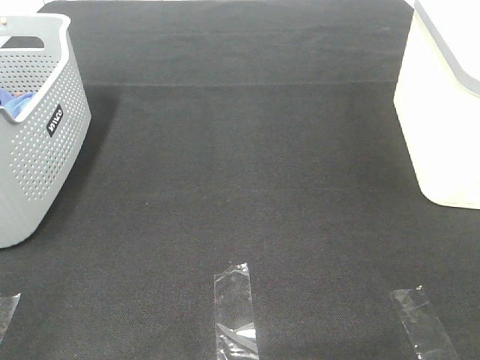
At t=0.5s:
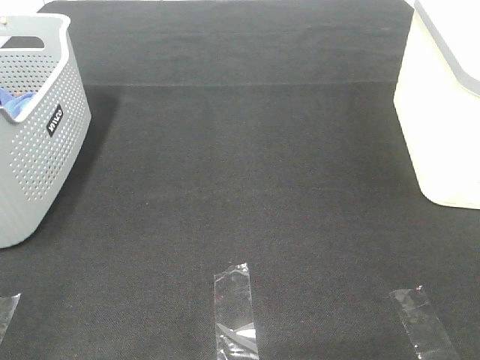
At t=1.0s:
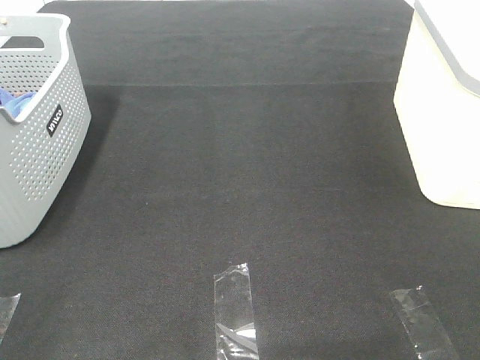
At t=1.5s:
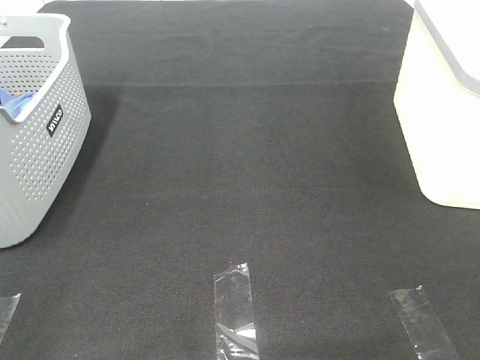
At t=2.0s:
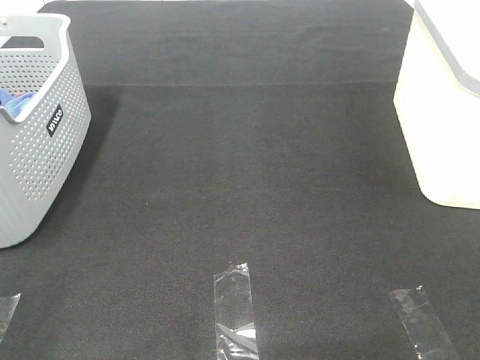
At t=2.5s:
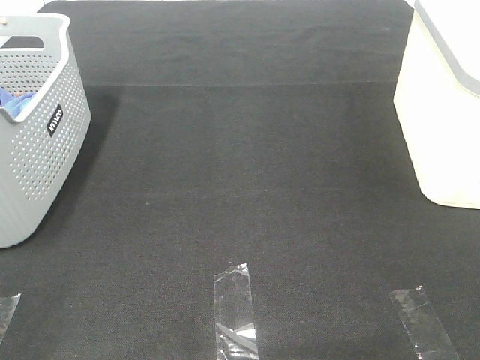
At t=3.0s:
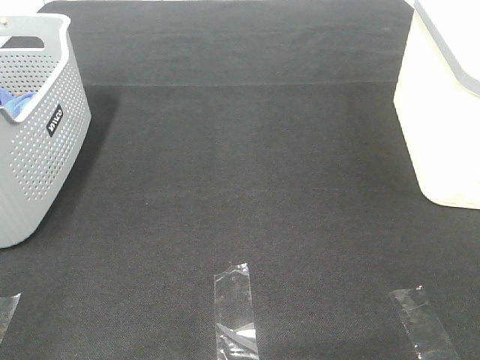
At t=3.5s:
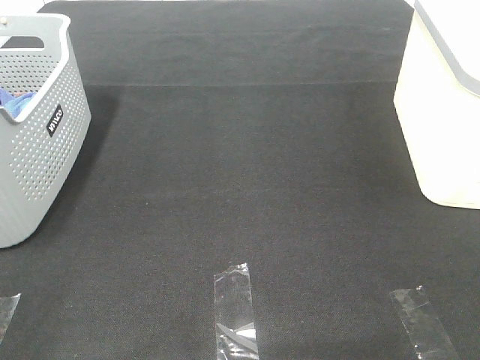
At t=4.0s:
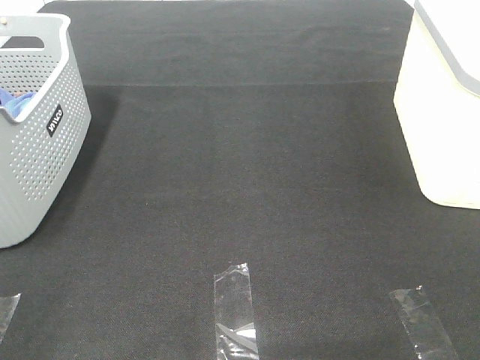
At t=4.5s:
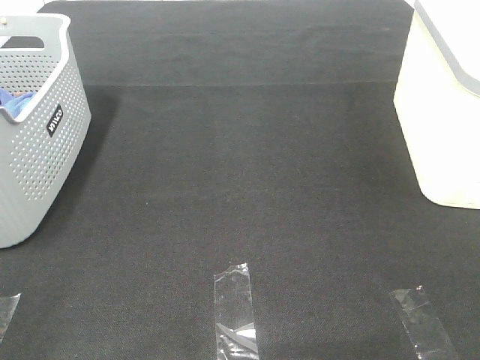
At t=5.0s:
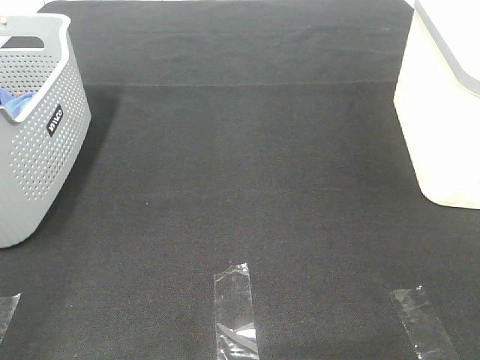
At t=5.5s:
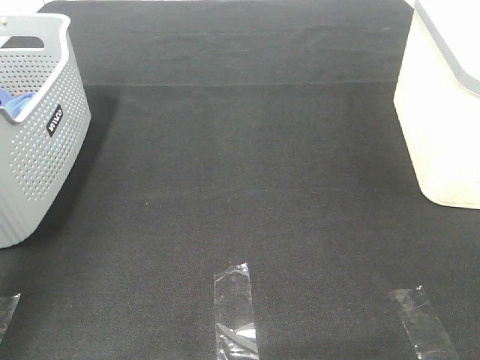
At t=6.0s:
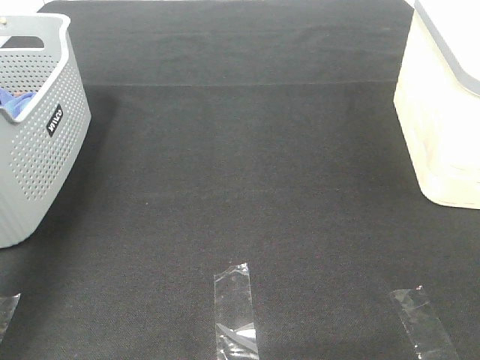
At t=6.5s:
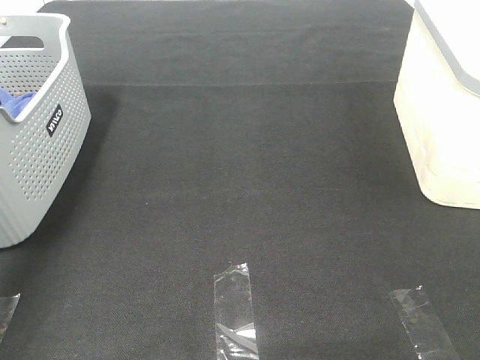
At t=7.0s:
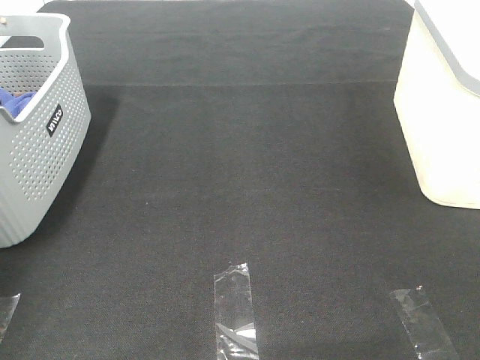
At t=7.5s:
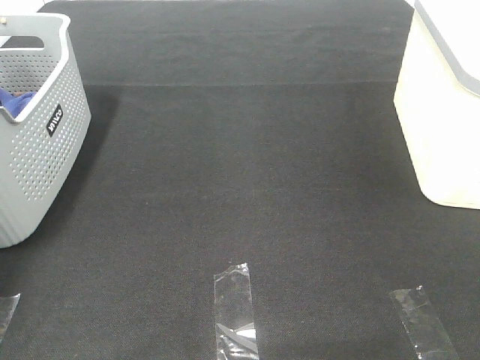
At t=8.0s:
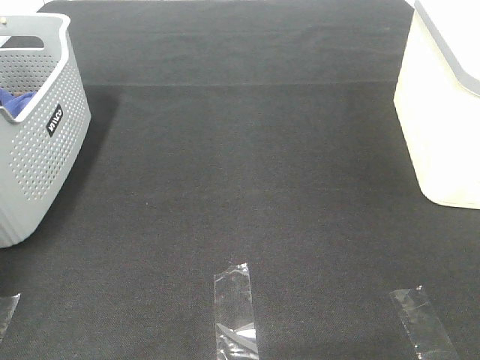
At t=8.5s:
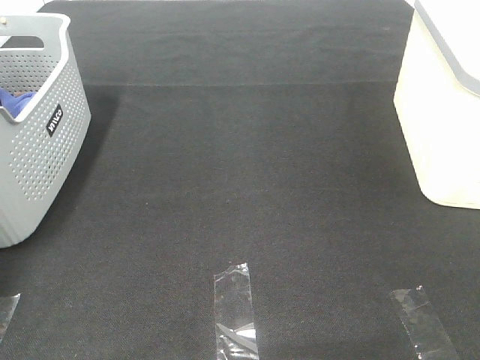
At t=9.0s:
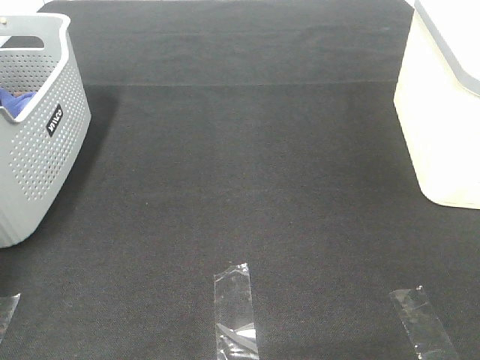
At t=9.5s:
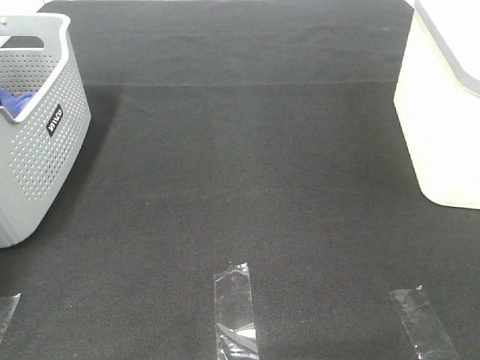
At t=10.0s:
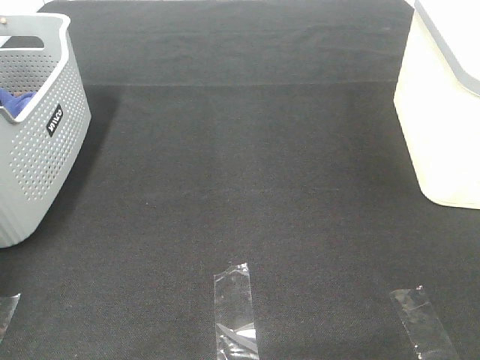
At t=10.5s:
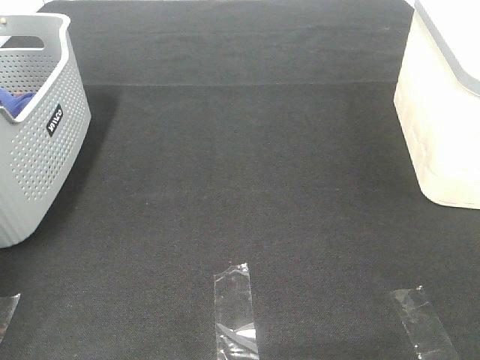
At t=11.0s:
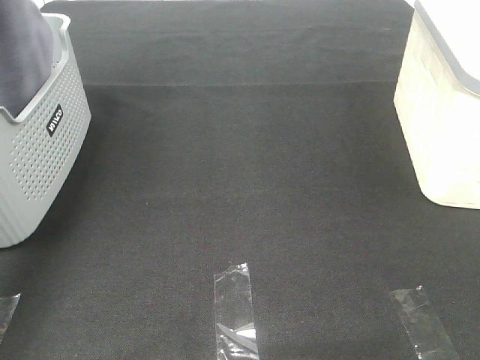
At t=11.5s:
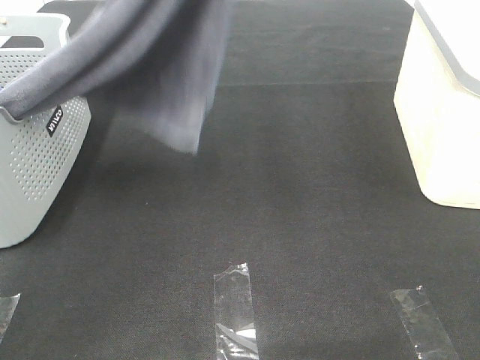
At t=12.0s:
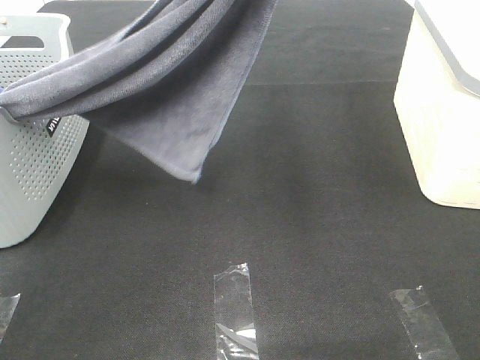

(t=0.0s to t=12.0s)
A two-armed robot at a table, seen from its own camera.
Task of the whole recording: Remove the towel and place it.
t=0.0s - t=4.0s: Neither gripper changes place.
t=4.0s - t=6.0s: The left gripper heads forward, covering roughly 30 cm.
t=6.0s - t=8.0s: The left gripper heads forward, downward and to the left, covering roughly 25 cm.
t=10.0s - t=12.0s: The left gripper is displaced to the right and backward by approximately 40 cm. The right gripper goes approximately 10 cm forward.

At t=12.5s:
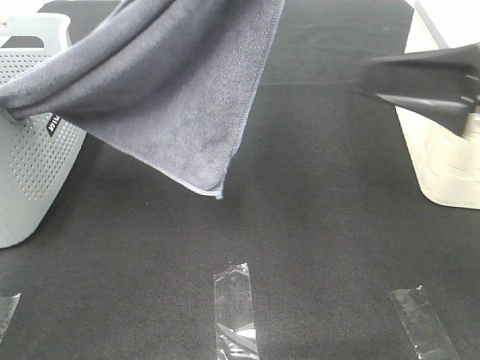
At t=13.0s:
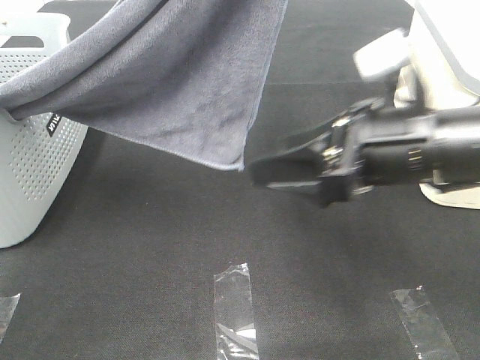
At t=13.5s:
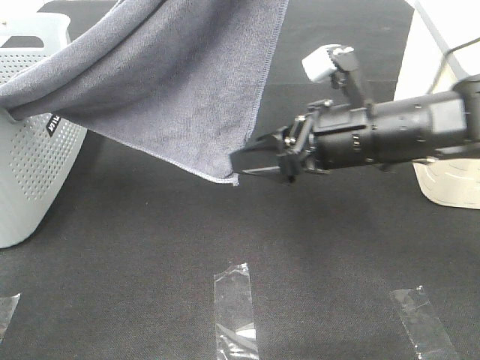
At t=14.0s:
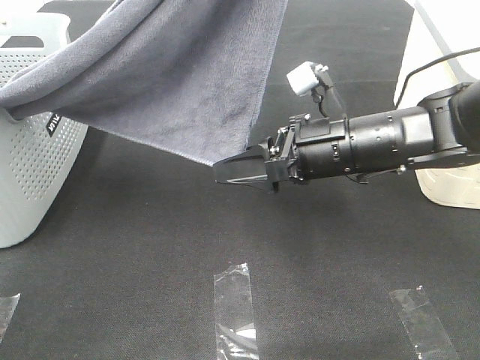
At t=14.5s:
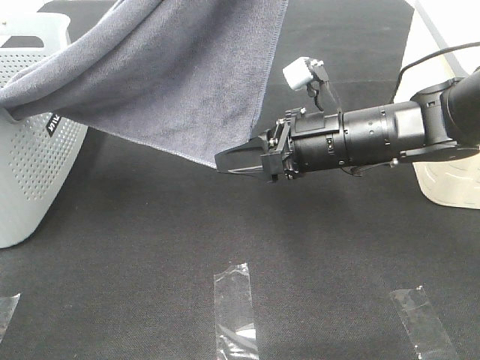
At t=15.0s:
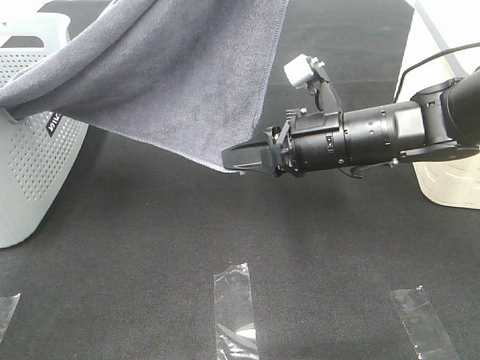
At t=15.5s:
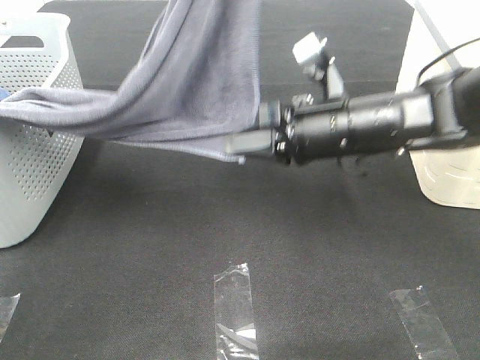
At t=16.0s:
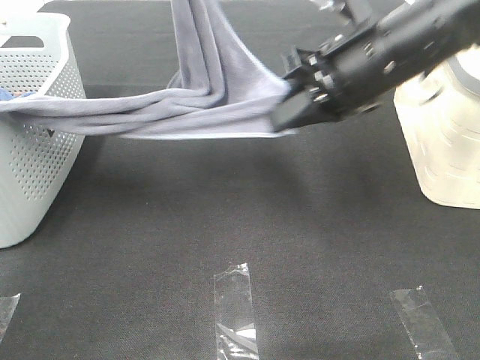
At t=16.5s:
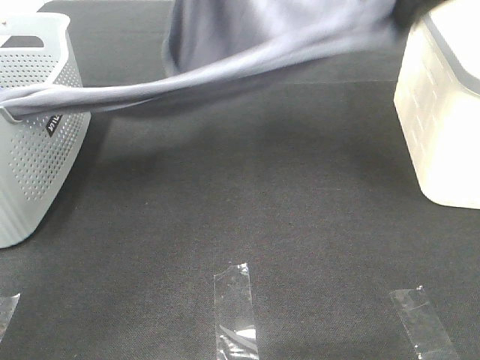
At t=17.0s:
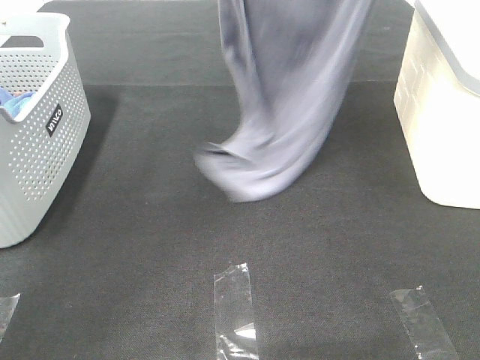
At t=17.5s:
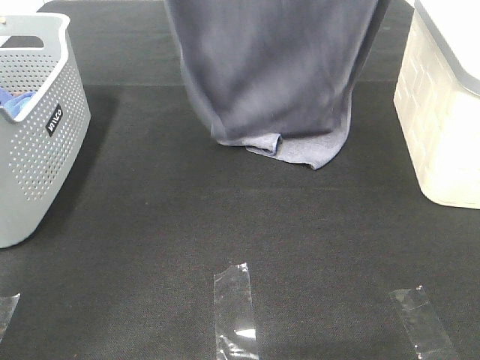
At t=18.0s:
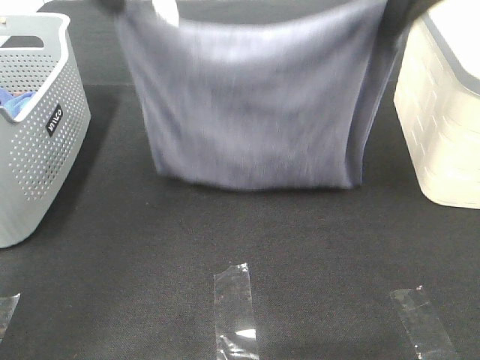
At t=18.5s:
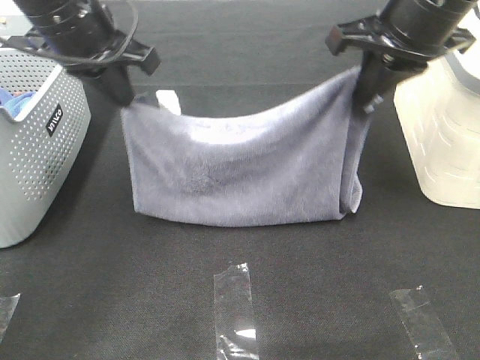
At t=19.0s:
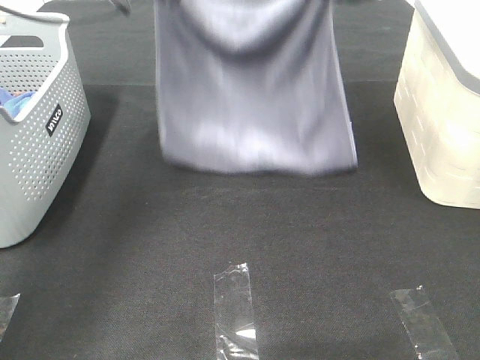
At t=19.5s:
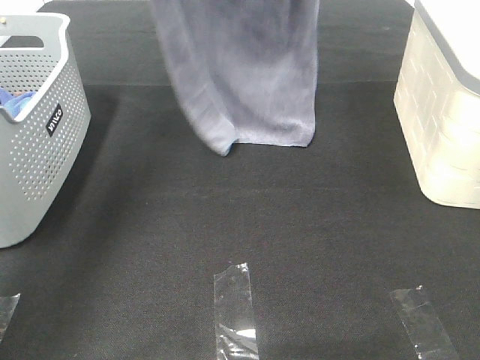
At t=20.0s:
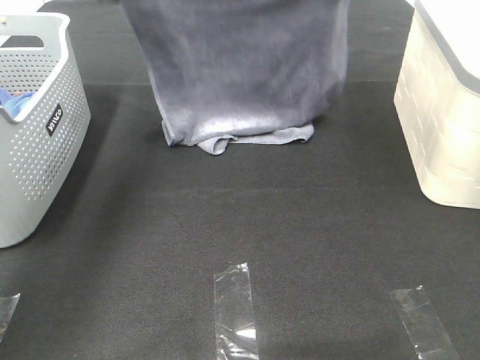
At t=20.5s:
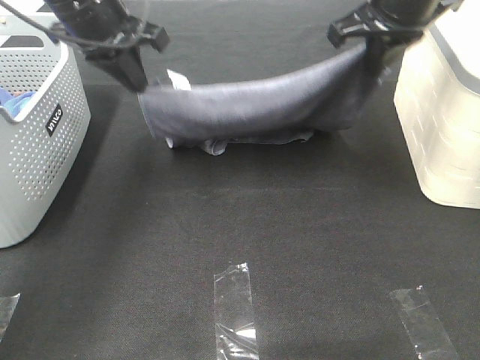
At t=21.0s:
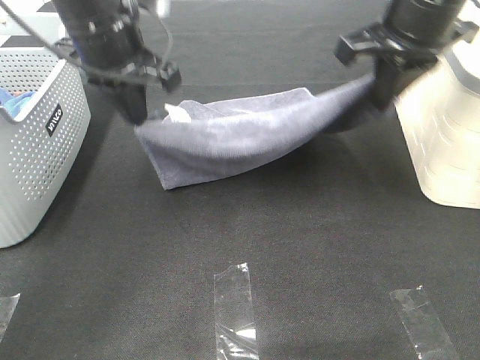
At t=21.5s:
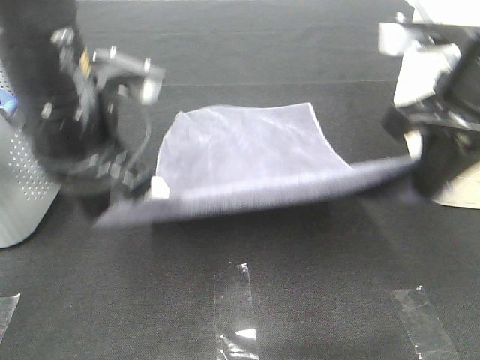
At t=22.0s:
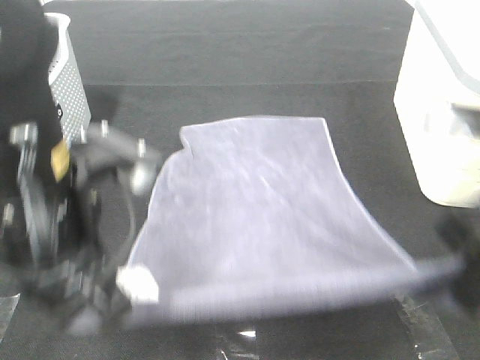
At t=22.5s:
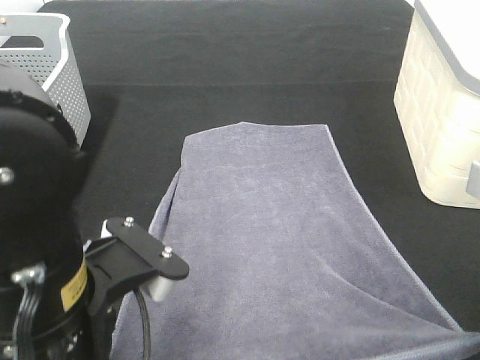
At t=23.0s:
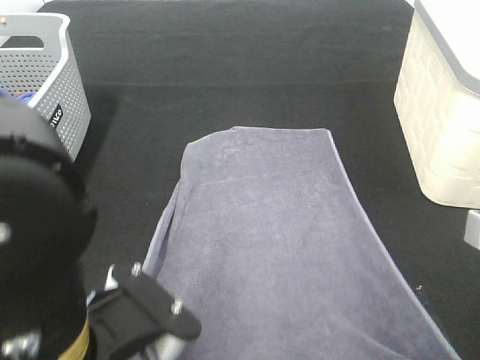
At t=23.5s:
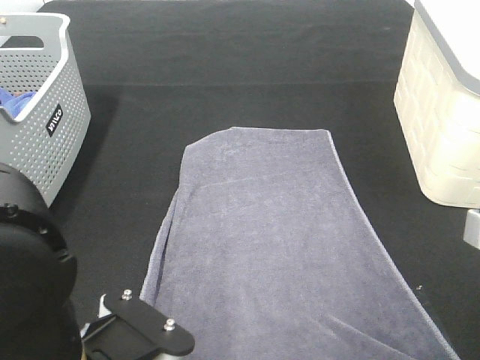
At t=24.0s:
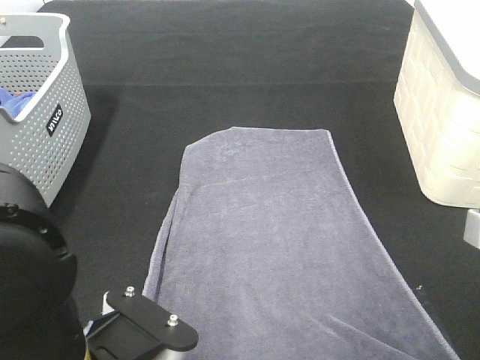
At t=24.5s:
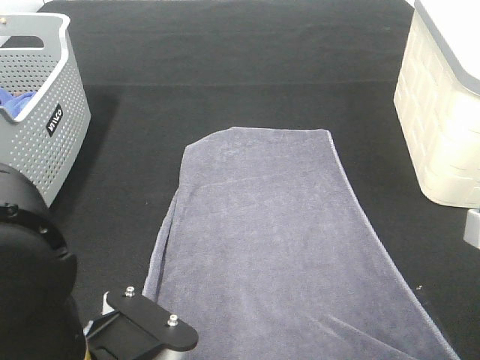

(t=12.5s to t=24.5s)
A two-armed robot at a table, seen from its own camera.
Task of the whole recording: Remove the towel and place it.
Step, t=14.5s - t=20.0s: Left hand: spread the grey towel flat on the table.
Step, t=14.5s - t=20.0s: Right hand: spread the grey towel flat on the table.
t=12.5s - t=14.5s: The right gripper travels downward, forward and to the left by about 20 cm, and closes its fingers.
t=14.5s - t=16.5s: The right gripper heads upward, covering some 25 cm, and closes, while the left gripper goes about 15 cm forward and downward.
t=16.5s - t=18.5s: The left gripper goes about 15 cm downward and to the left. Meanwhile the right gripper goes some 5 cm downward.
t=18.5s - t=20.5s: The left gripper moves about 15 cm upward and comes back; the right gripper reaches approximately 15 cm upward, then returns.
t=20.5s - t=22.5s: Both grippers move backward, about 30 cm.
t=22.5s - t=24.5s: The grippers stay close to where they were, moving slightly.

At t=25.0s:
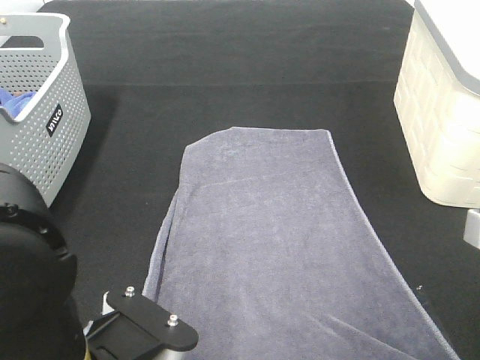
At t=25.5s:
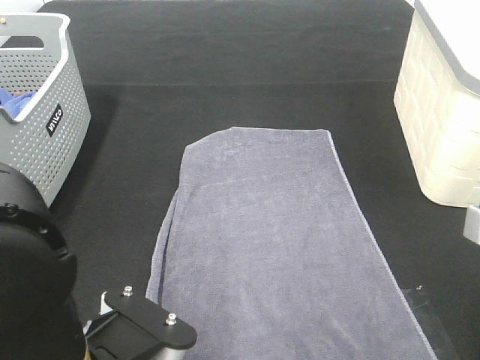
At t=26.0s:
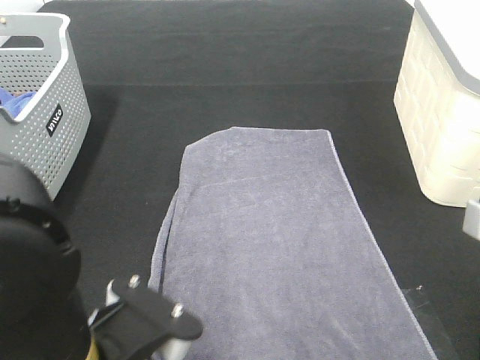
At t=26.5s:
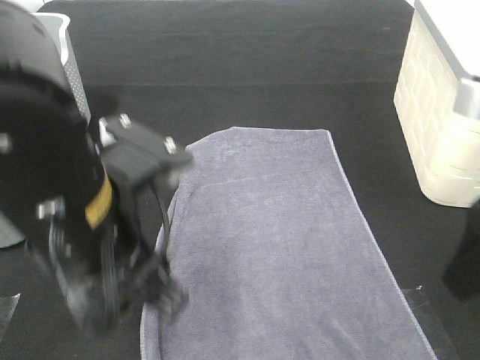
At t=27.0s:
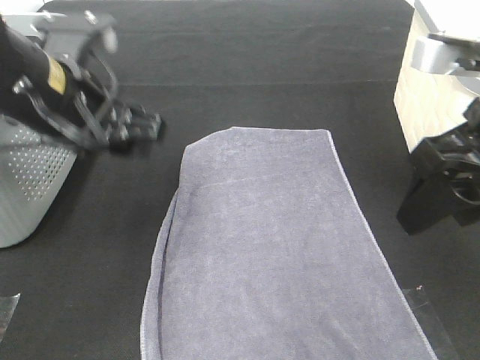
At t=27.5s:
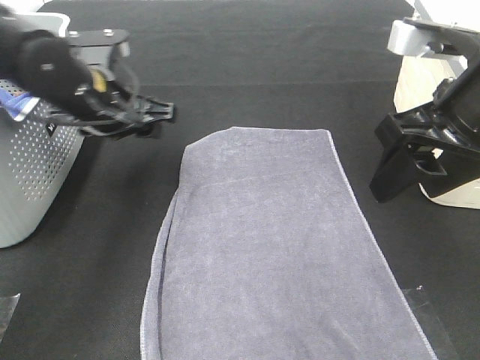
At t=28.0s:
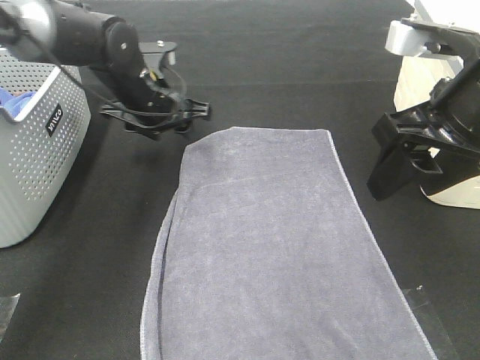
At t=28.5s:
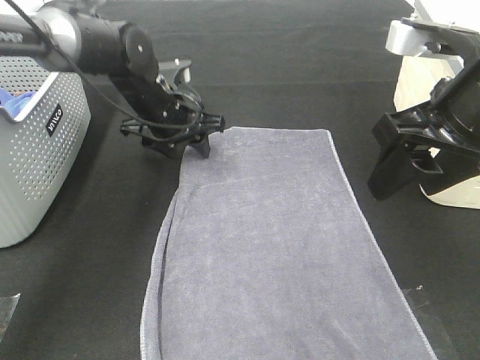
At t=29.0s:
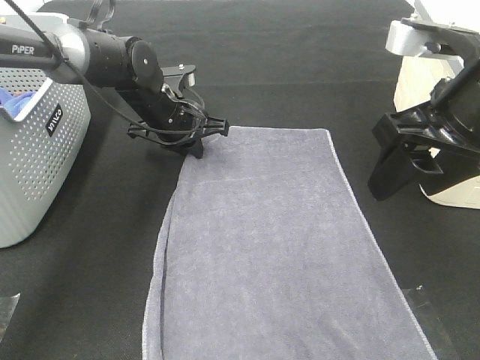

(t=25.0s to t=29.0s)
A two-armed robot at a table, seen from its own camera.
Task of the whole recording: Remove the towel and place it.
t=25.0s - t=27.0s: The left gripper moves forward, approximately 20 cm, and opens up. The right gripper is displaced forward and upward by approximately 10 cm, and opens up.
t=27.0s - t=29.0s: The left gripper moves forward and downward, about 20 cm, and closes up.
